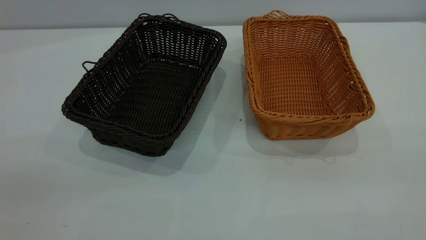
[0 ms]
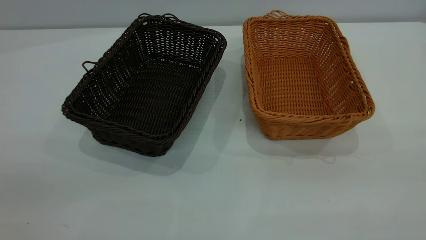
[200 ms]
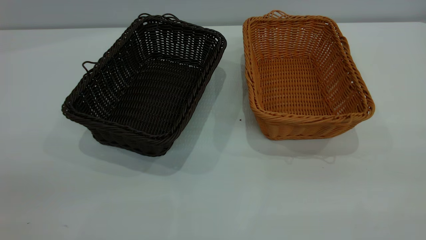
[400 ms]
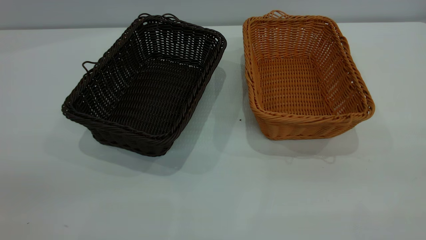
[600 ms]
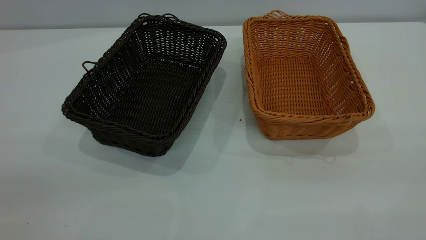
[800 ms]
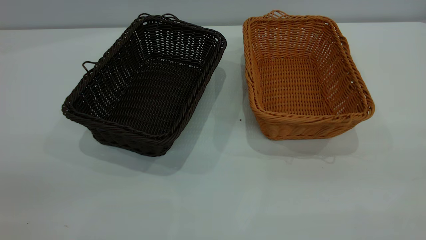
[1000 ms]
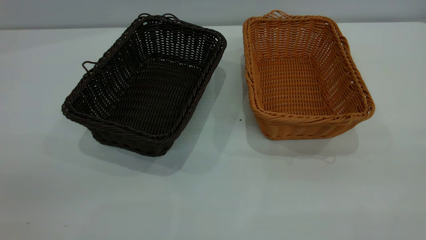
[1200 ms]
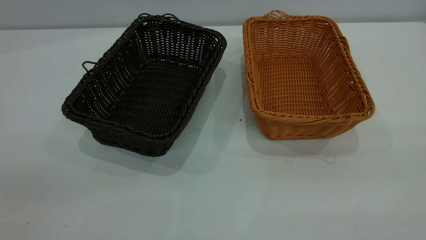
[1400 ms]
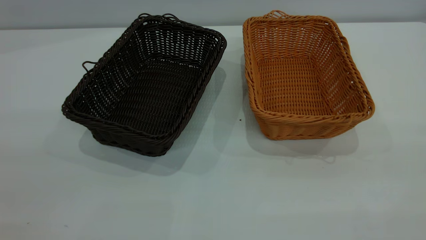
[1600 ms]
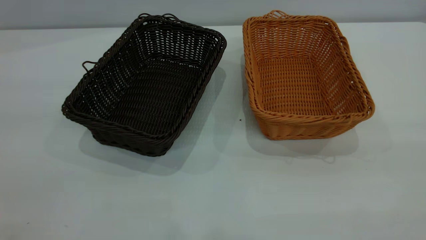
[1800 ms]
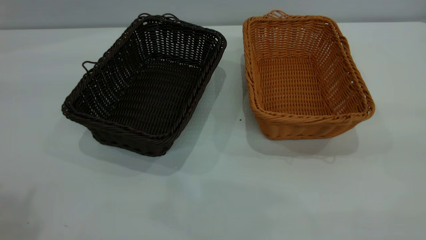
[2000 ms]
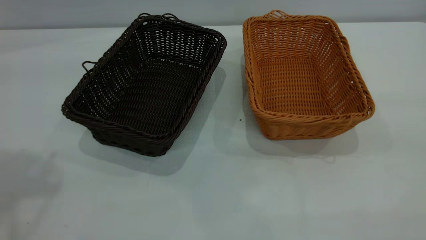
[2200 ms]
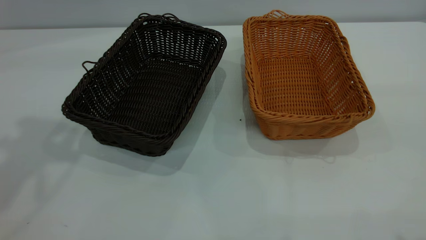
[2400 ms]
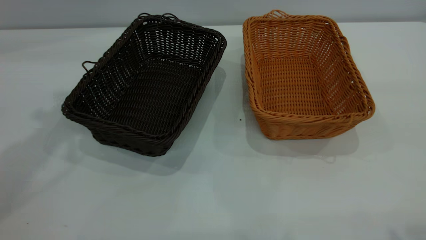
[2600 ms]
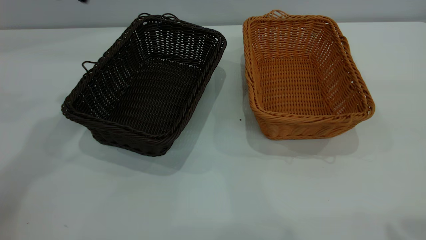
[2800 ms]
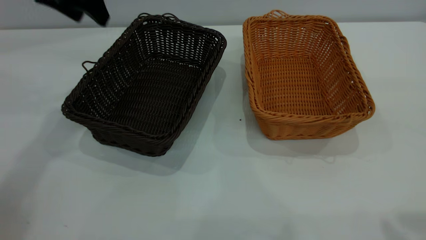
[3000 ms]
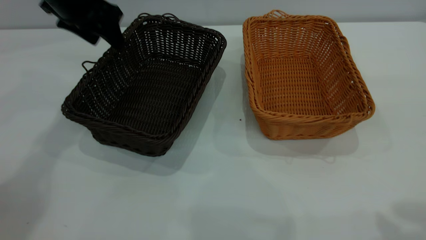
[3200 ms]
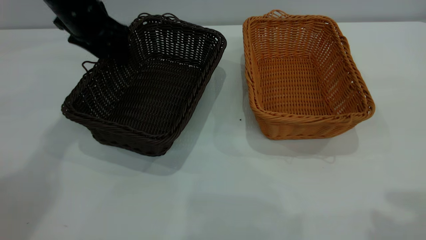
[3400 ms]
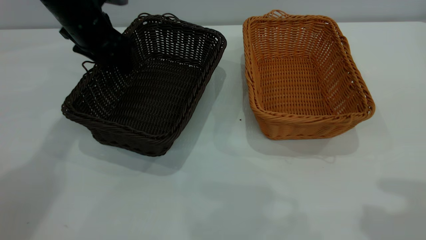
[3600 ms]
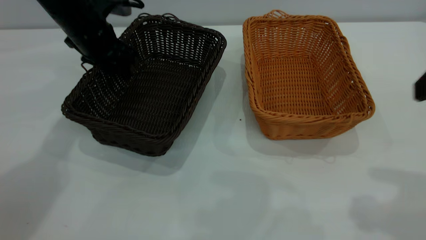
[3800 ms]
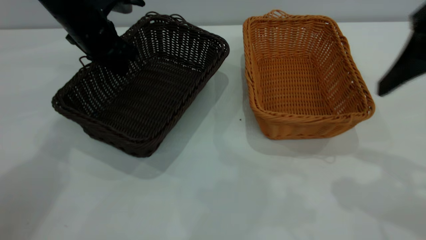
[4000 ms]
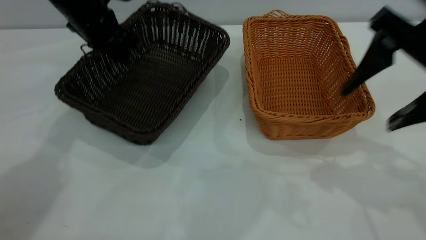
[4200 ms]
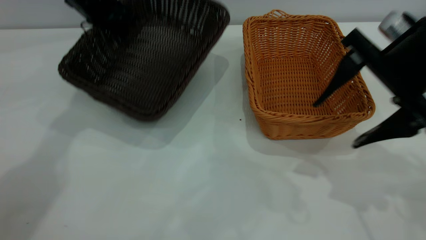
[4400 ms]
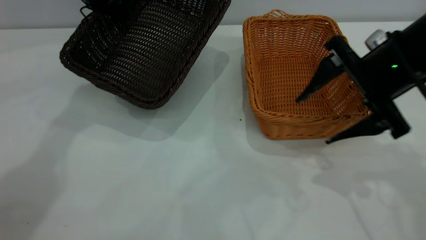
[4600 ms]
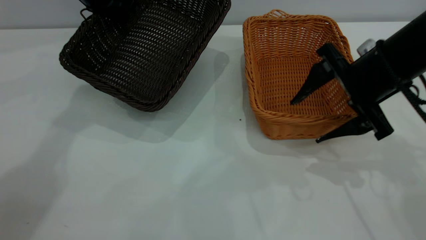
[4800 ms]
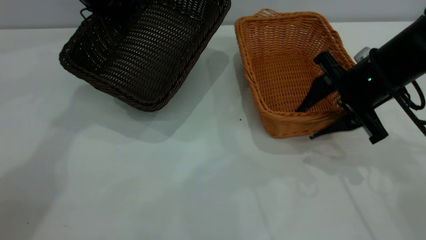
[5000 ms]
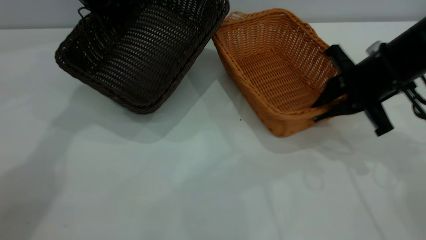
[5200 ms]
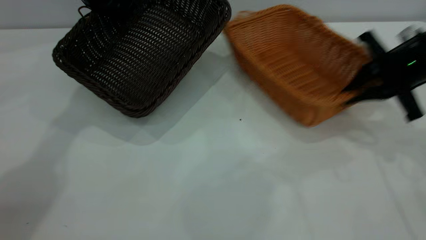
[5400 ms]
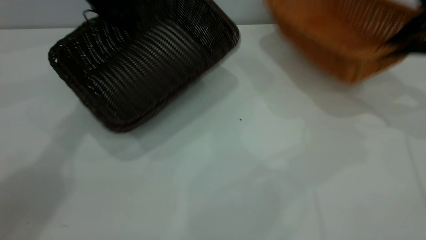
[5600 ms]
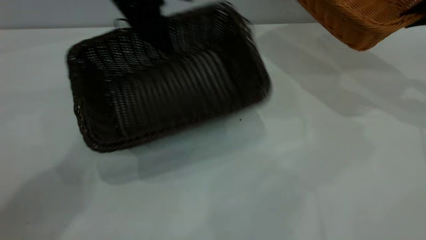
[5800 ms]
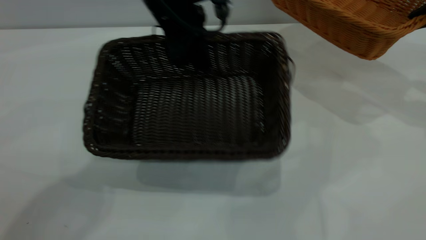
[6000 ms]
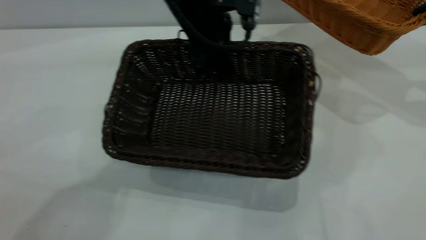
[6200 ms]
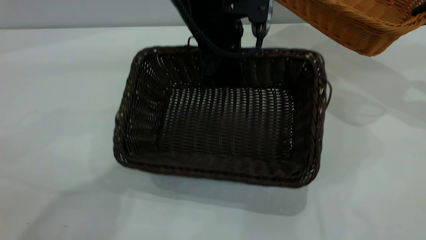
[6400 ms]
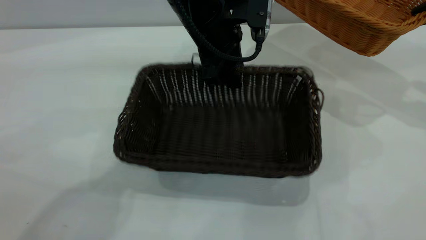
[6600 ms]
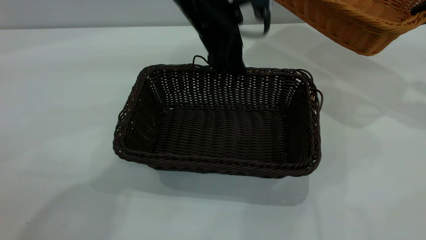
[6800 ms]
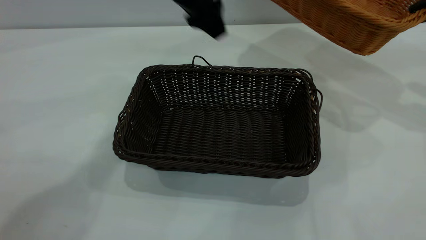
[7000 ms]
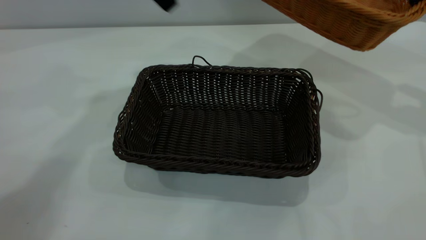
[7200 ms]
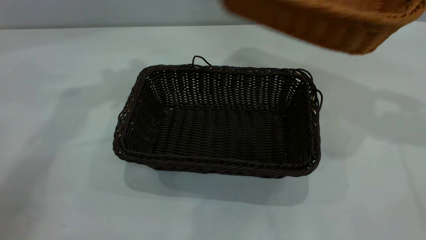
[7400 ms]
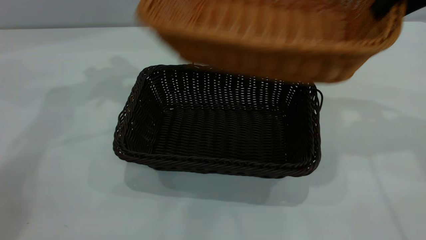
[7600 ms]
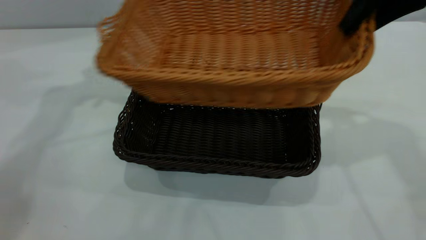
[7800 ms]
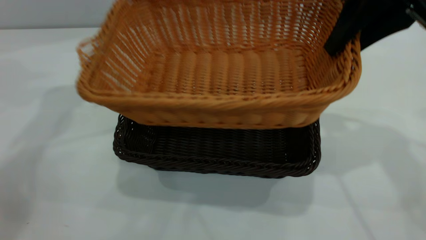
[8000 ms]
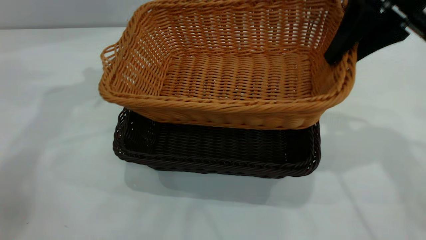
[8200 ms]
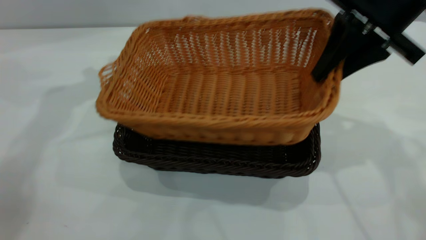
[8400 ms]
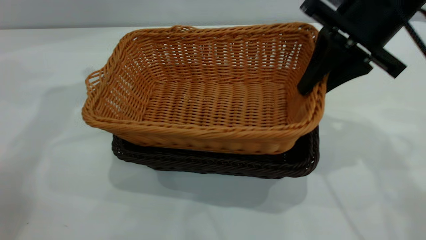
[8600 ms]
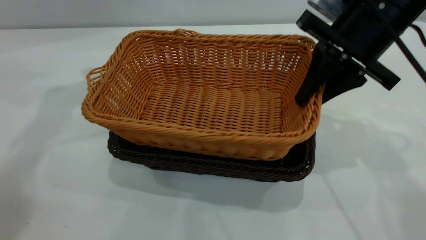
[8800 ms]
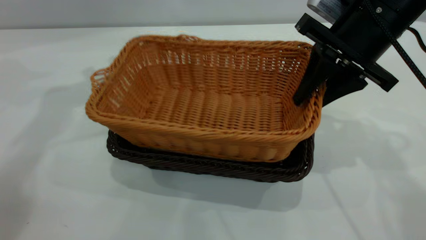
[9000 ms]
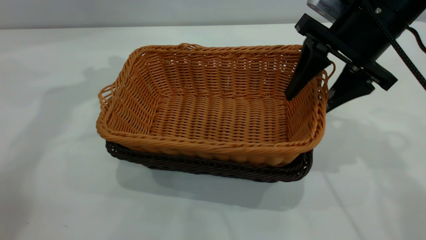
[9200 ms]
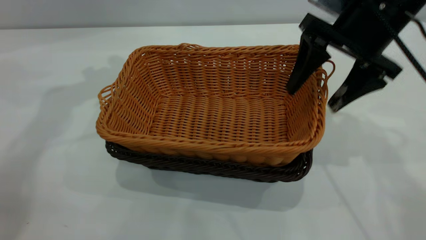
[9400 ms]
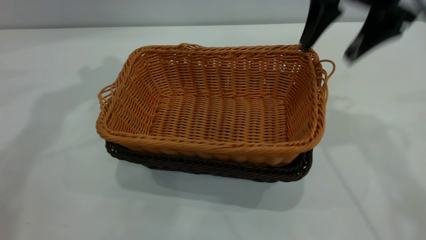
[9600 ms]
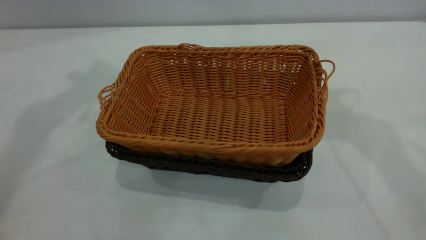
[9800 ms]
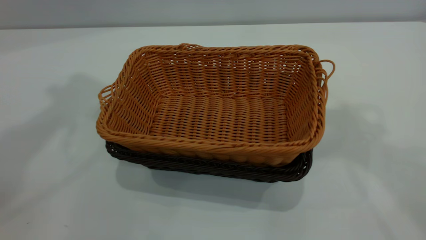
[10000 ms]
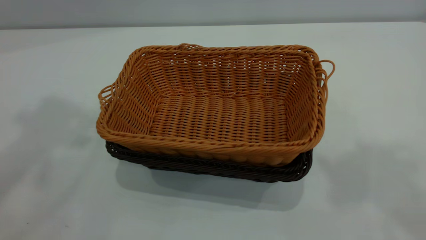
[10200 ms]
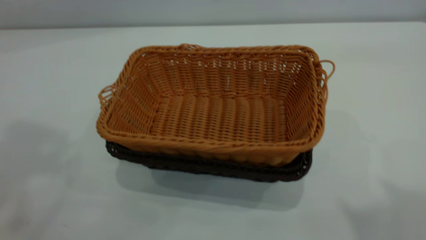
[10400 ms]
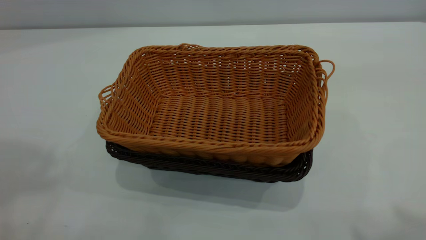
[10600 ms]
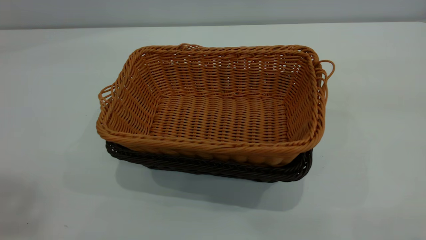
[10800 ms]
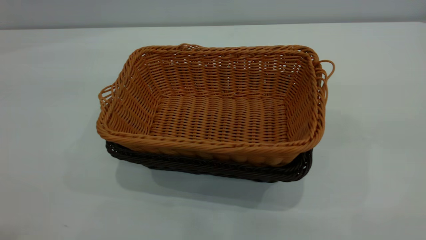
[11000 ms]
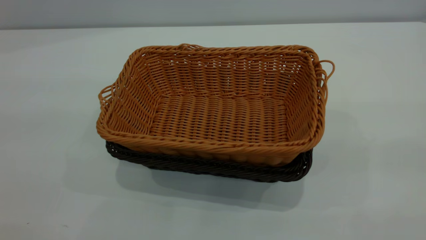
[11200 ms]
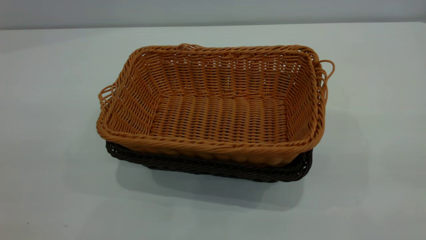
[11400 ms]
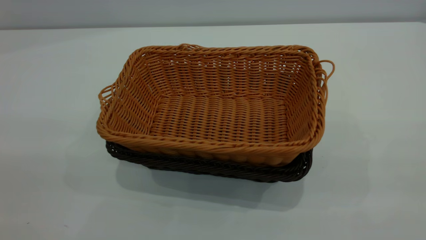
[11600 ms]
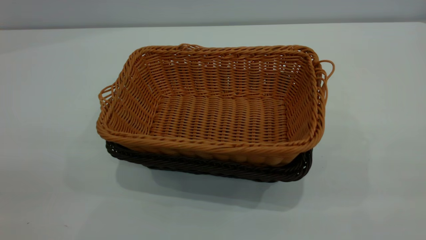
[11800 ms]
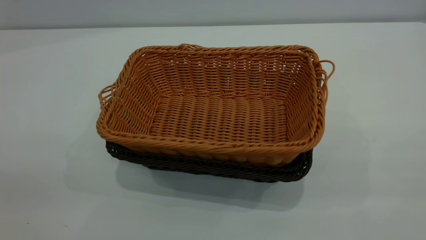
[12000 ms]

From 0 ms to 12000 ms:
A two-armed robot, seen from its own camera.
Task of the whole recording: the left gripper grasp the black basket and place it in the center of the table, the right gripper grasp the brown basket and place it inside the black one.
Step, from 0 ms to 5600 ms: Pick up the light basket with the right gripper.
Step, from 5800 ms to 6800 ms: Move the dark basket to the center of view.
Step, from 7200 ms to 9600 ms: Place the light basket on the dark basket.
From 1600 ms to 3000 ms: The left gripper moves forward, about 40 cm.
From 3000 ms to 4400 ms: The right gripper goes about 20 cm downward and forward; the left gripper goes roughly 10 cm forward and downward, and closes its fingers.
From 4400 ms to 6000 ms: The right gripper heads to the right and forward, covering about 20 cm, and closes. Meanwhile the left gripper heads to the right and backward, covering roughly 15 cm.
From 6000 ms to 7600 ms: The two grippers go about 20 cm to the left and upward. The left gripper opens up.
From 7600 ms to 9000 ms: The right gripper moves downward and to the left, approximately 10 cm.
From 9000 ms to 10400 ms: The two grippers go roughly 35 cm upward and backward. The right gripper opens up.

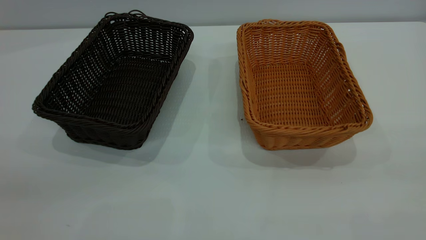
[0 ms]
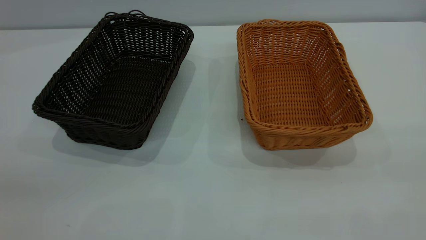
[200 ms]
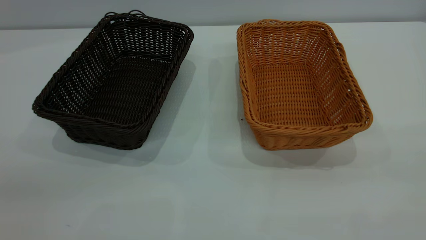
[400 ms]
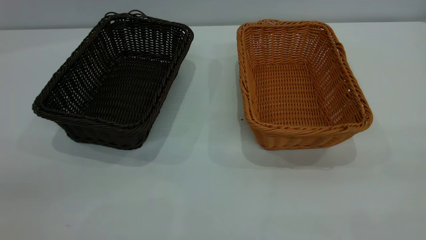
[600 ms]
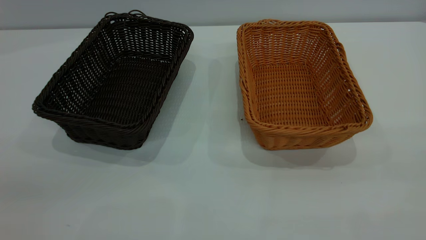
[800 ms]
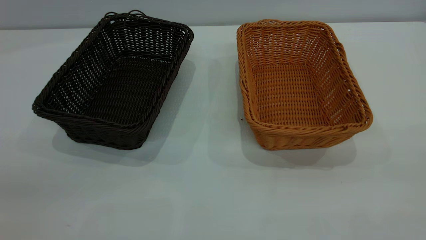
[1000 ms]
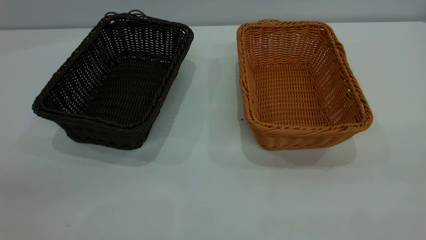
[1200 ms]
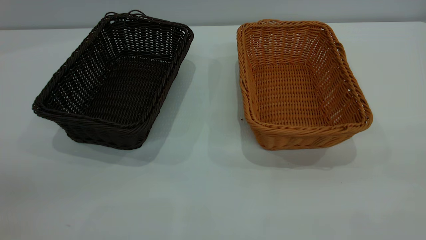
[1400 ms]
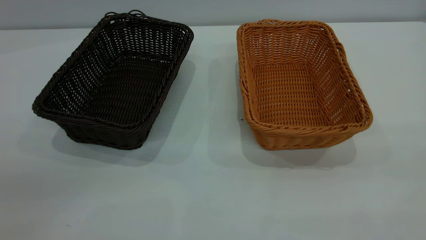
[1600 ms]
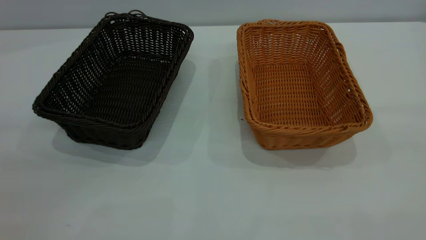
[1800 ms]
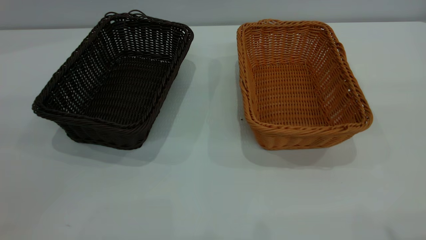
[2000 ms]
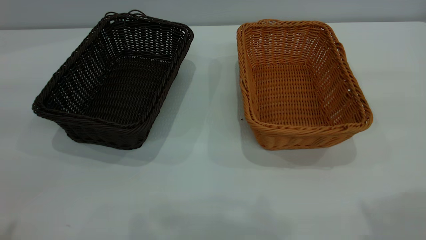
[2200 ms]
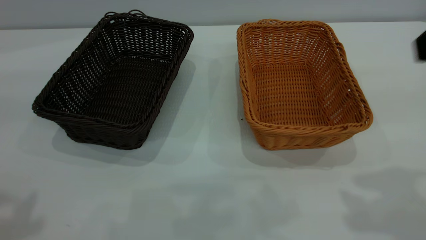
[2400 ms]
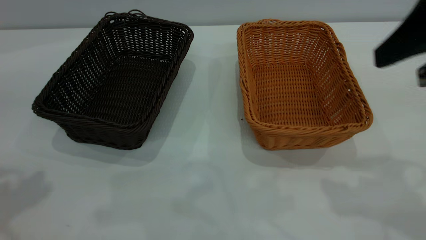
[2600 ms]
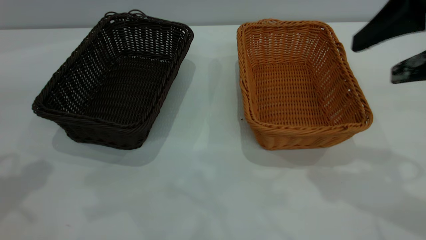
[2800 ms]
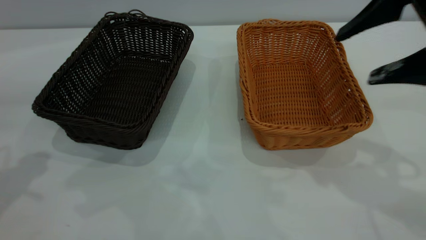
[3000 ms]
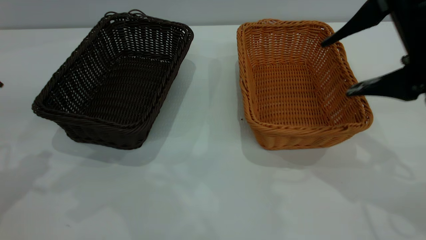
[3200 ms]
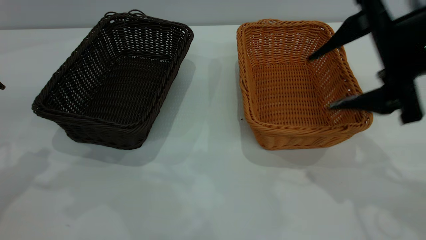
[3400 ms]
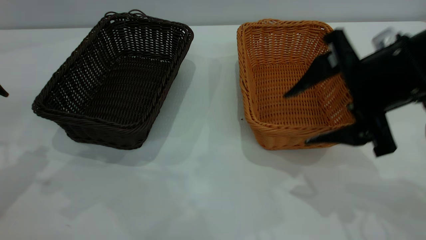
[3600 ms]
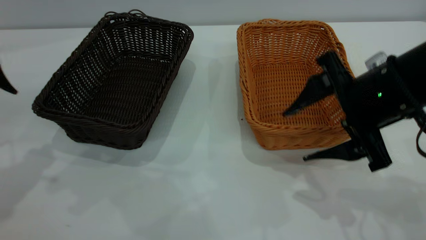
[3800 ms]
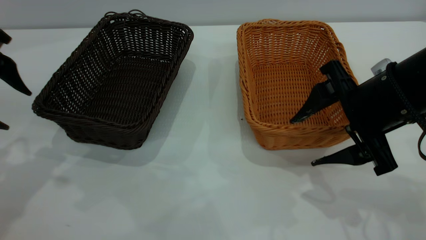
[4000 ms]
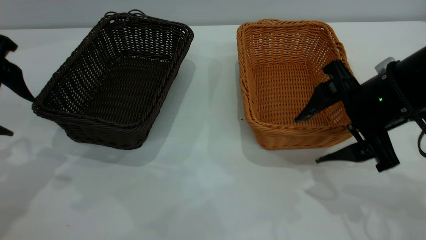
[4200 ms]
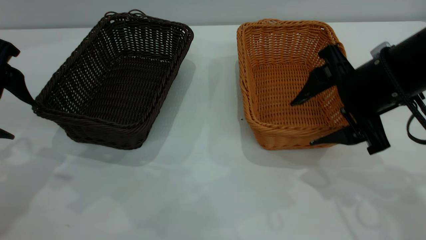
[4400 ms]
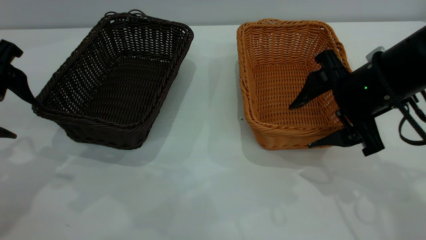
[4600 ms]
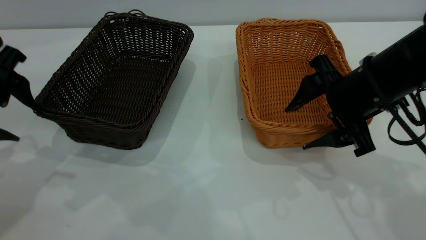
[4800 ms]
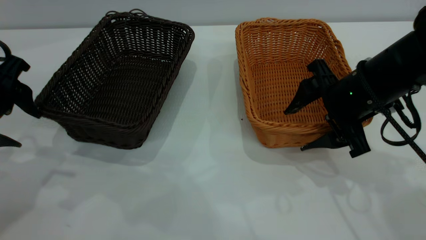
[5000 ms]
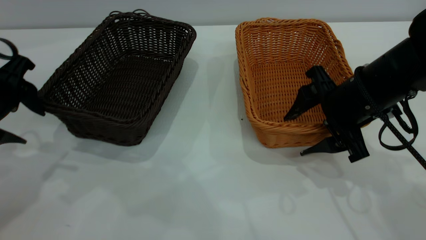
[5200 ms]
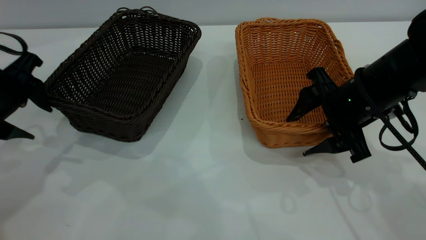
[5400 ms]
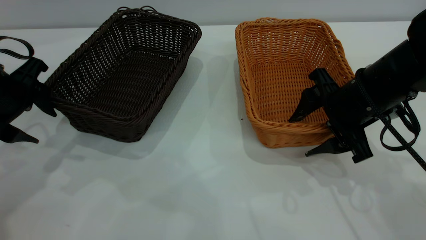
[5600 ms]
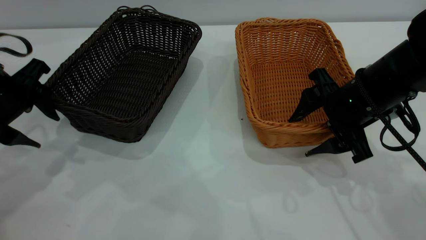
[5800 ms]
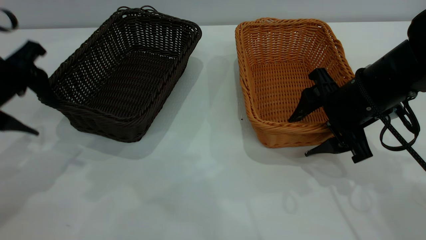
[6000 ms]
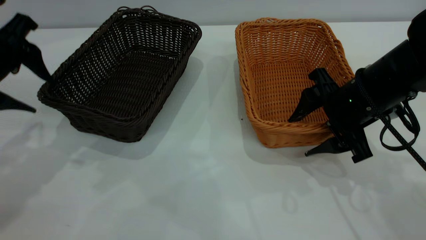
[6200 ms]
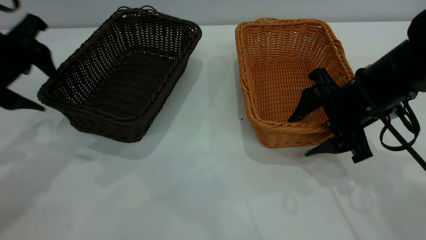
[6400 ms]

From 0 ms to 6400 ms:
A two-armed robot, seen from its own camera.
Task of the whole recording: the left gripper grasp the black basket and place it in the center of the table, the right gripper grasp the brown basket and place it inside the black one.
From 0 ms to 1600 ms: Both grippers stay put.
From 1600 ms to 3200 ms: The right gripper goes roughly 30 cm forward and downward.
From 3200 ms to 4800 ms: The left gripper goes roughly 5 cm downward. The right gripper heads downward, covering approximately 10 cm.
From 4800 ms to 6400 ms: The left gripper moves roughly 5 cm.
